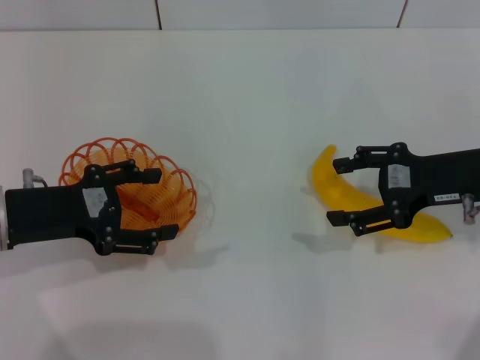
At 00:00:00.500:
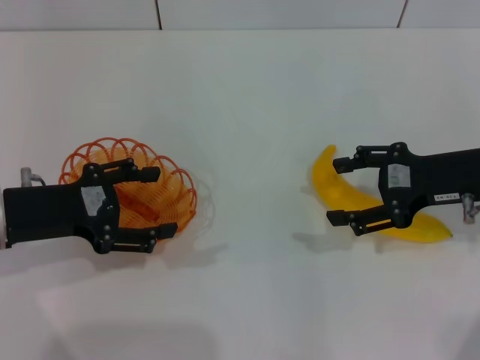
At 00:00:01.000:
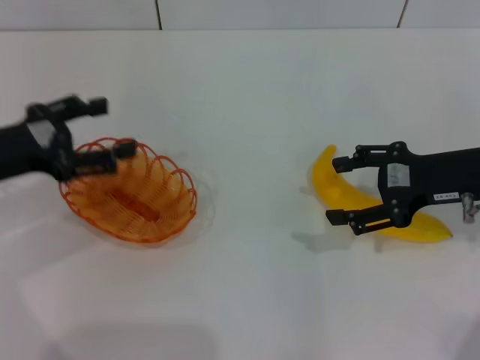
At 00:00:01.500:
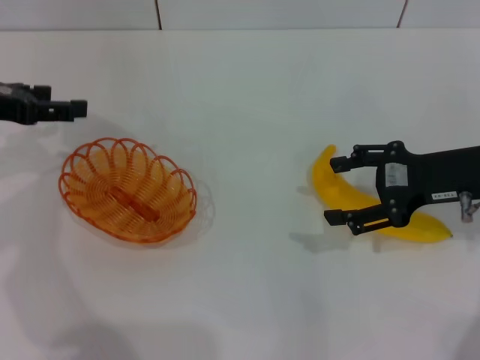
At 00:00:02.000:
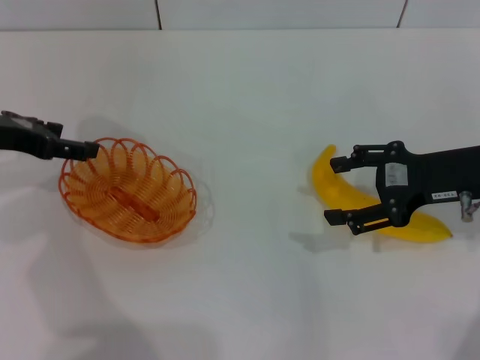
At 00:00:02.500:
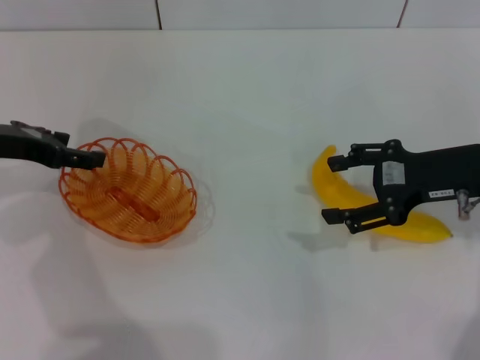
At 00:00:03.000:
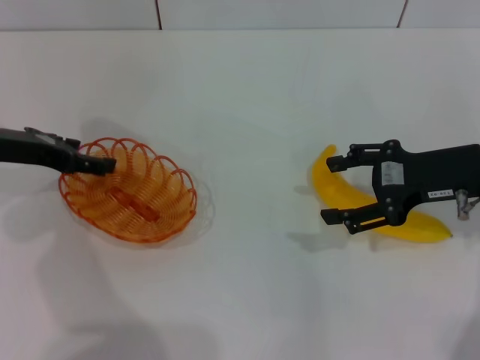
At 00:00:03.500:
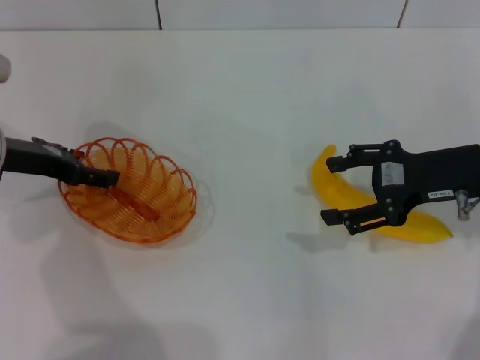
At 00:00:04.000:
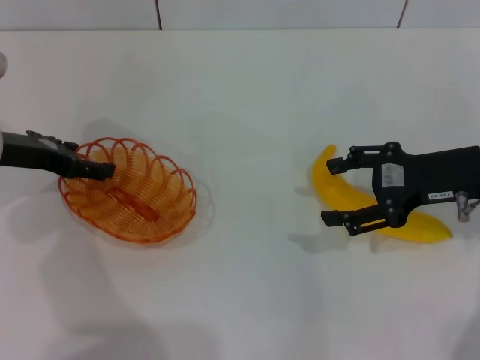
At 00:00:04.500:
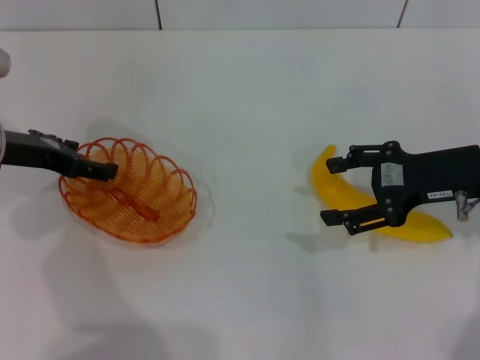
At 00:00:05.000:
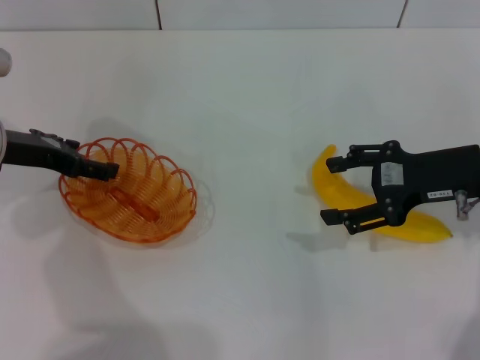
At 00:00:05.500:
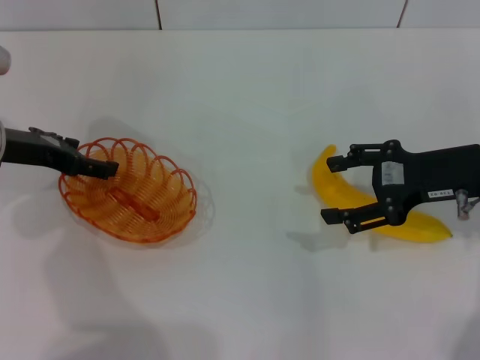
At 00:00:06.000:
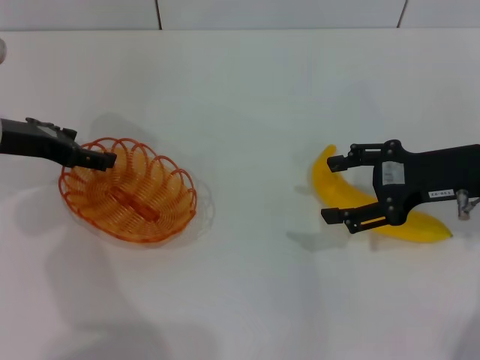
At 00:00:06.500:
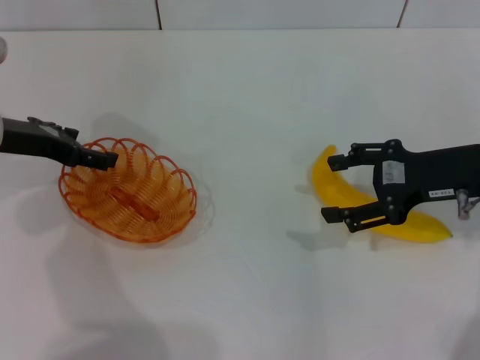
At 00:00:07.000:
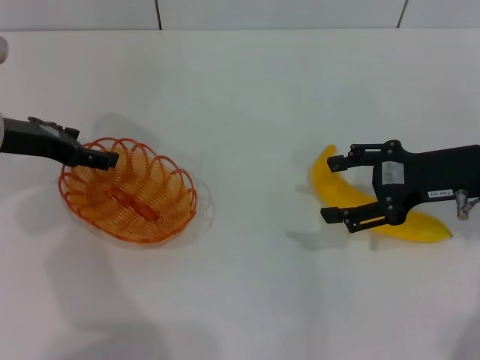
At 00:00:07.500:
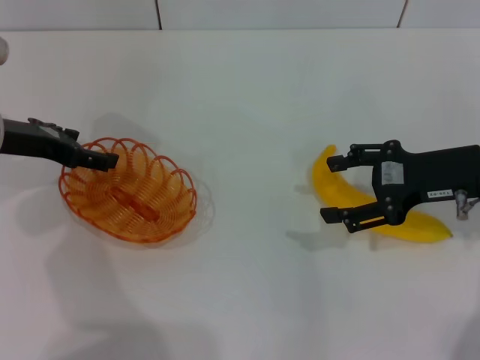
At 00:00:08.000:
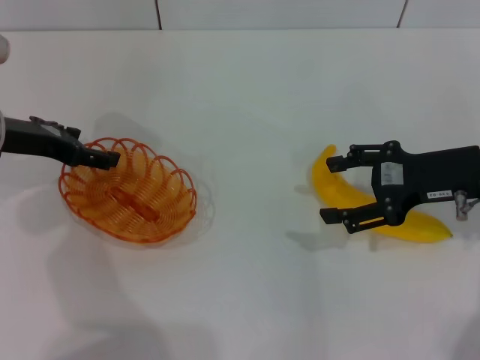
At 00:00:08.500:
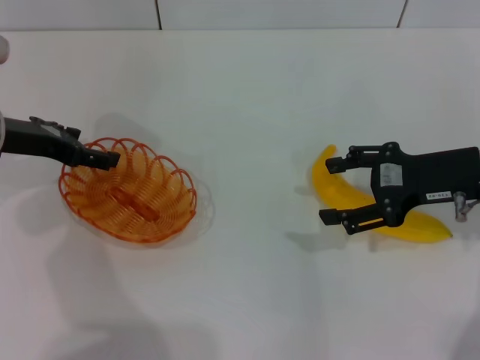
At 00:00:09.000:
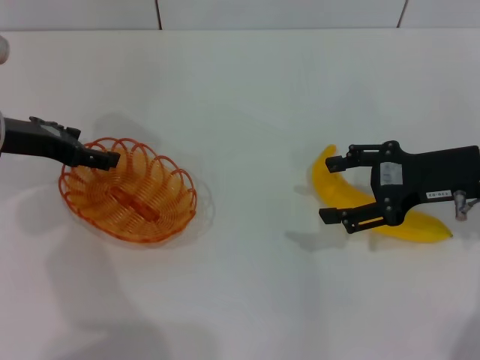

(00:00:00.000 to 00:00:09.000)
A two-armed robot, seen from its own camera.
00:00:00.000 - 00:00:02.000: The left gripper shifts some 10 cm forward and upward.
00:00:02.000 - 00:00:04.500: The grippers move only a little.
00:00:04.500 - 00:00:09.000: The two grippers keep their place.
